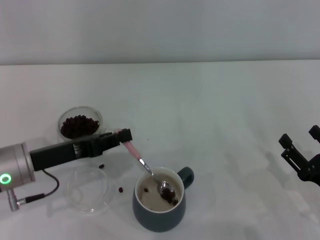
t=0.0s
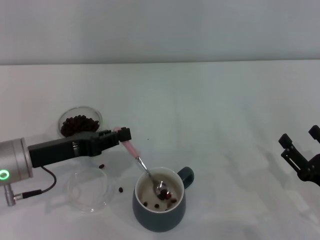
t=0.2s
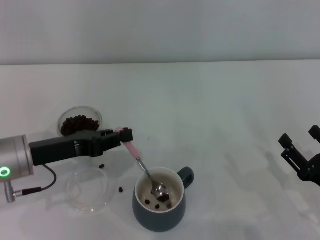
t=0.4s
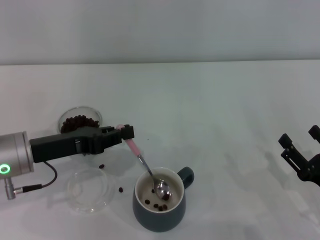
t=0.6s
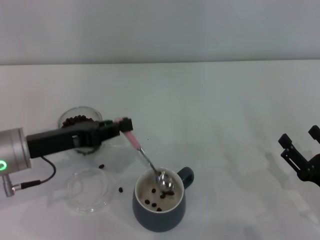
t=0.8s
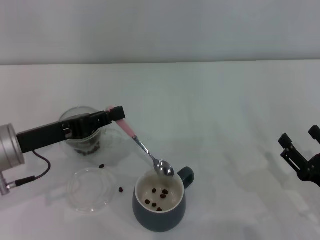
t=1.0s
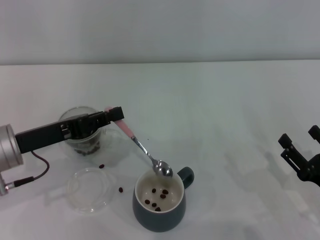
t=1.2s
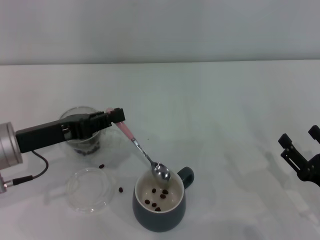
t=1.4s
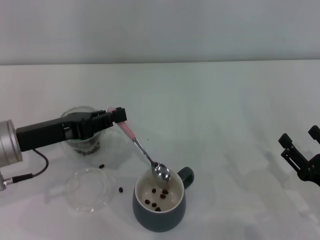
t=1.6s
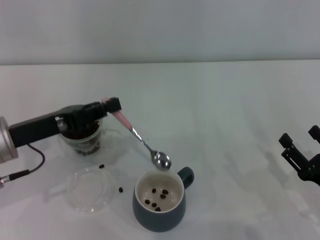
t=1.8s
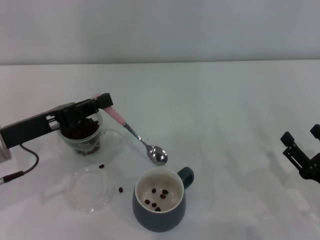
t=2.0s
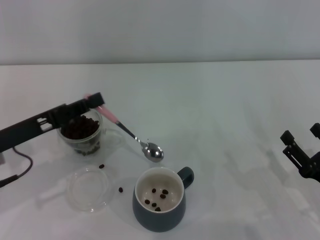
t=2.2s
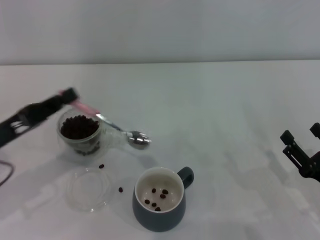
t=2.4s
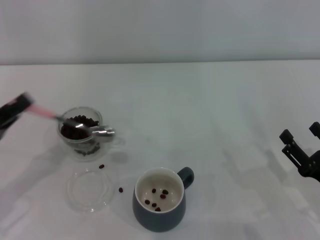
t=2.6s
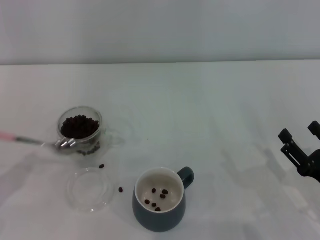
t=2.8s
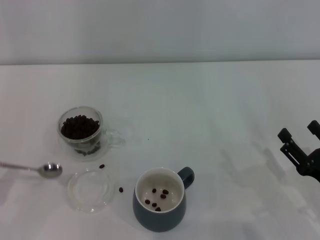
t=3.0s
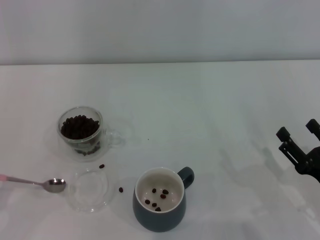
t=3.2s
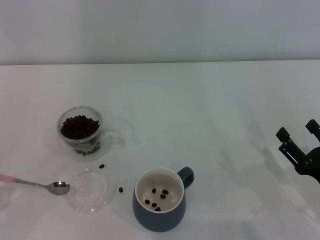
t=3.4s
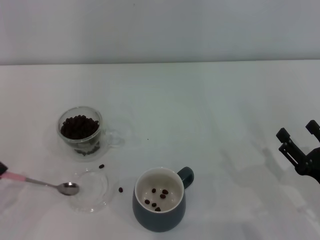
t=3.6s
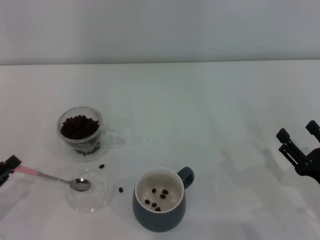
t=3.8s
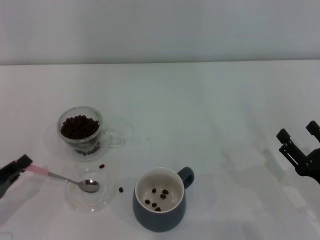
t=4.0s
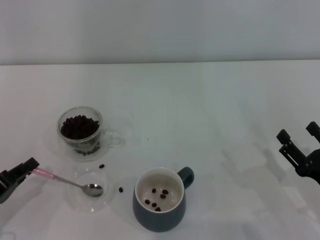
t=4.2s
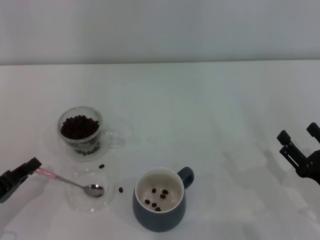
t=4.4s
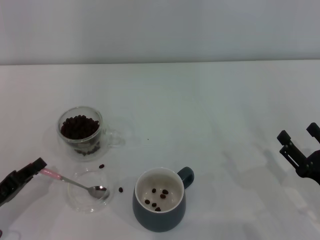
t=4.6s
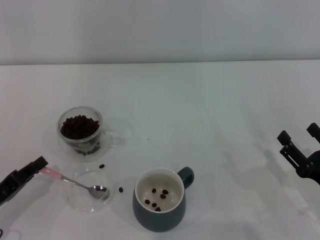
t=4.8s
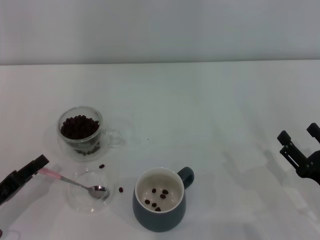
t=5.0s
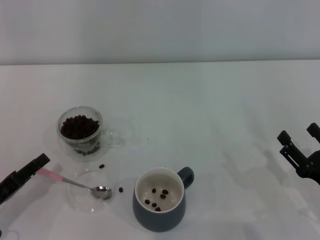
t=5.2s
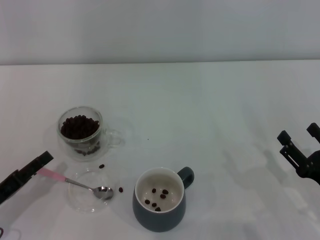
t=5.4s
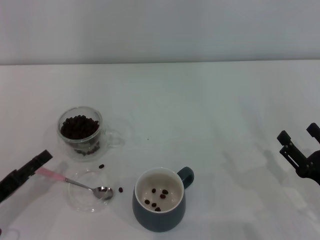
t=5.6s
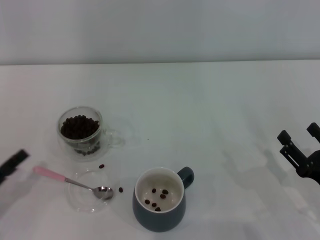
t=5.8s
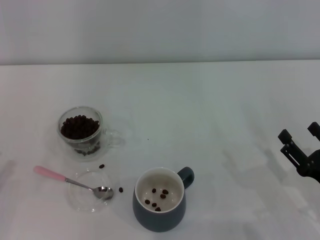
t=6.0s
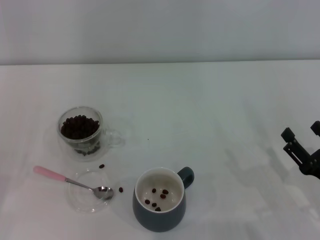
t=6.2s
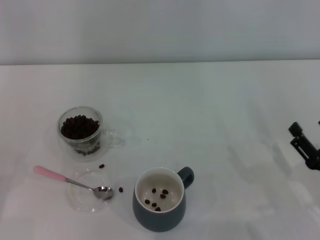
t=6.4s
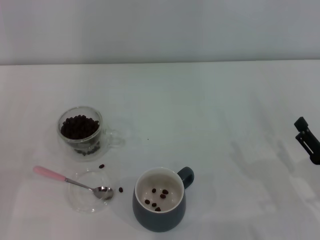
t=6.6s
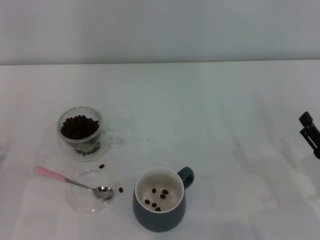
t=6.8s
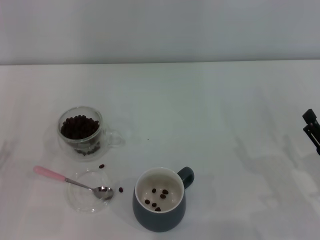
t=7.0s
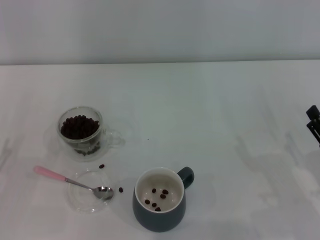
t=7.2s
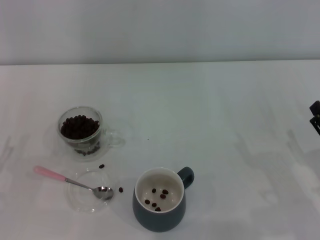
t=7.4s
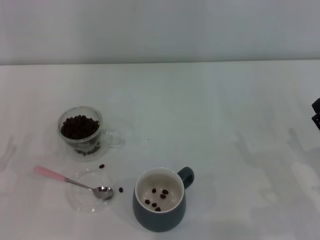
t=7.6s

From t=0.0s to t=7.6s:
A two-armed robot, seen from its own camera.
Task of the whole recording: Use a pink spoon to take out the coffee beans from the glass and pour them into the gray cup.
From t=0.0s to t=1.6s: The grippers move only a little.
From t=1.6s to t=3.0s: The left gripper is displaced backward, to the left and downward by some 20 cm.
From t=3.0s to t=4.6s: The left gripper goes roughly 5 cm to the right.
From t=4.6s to t=6.0s: The left gripper is displaced to the left by some 5 cm, and opens its fingers.
